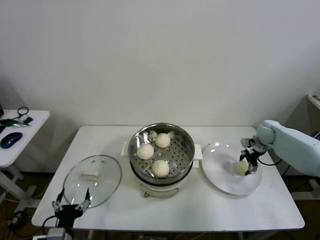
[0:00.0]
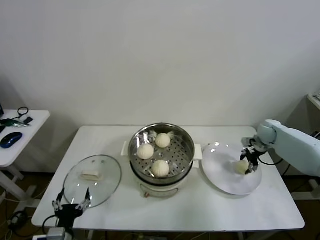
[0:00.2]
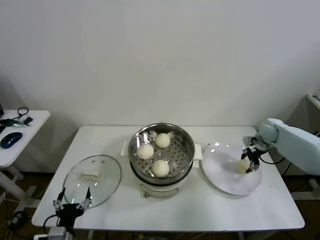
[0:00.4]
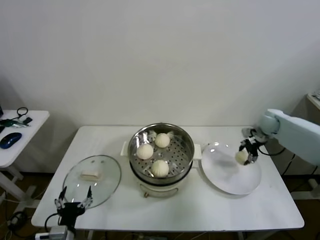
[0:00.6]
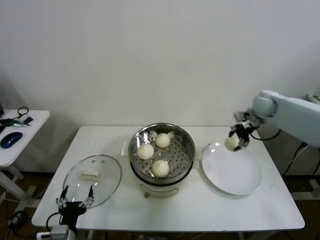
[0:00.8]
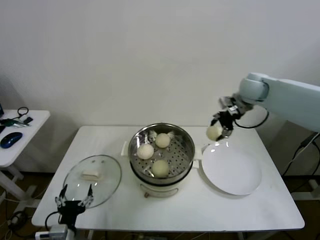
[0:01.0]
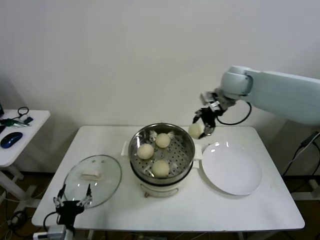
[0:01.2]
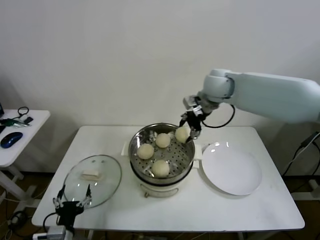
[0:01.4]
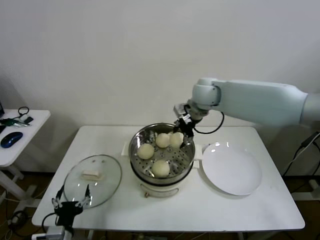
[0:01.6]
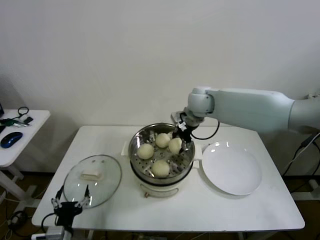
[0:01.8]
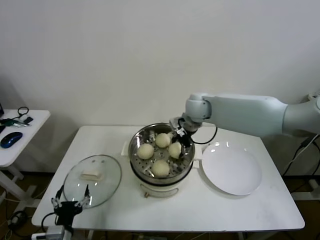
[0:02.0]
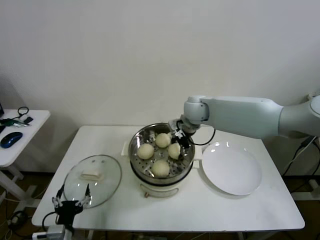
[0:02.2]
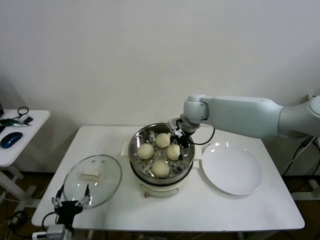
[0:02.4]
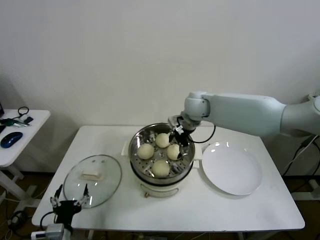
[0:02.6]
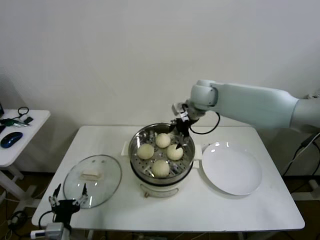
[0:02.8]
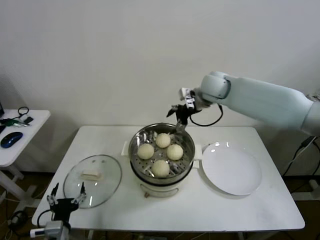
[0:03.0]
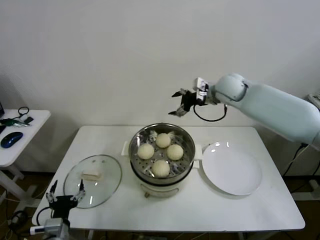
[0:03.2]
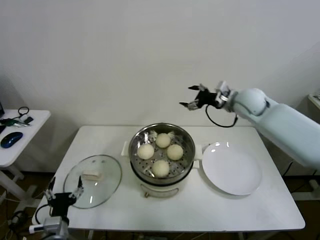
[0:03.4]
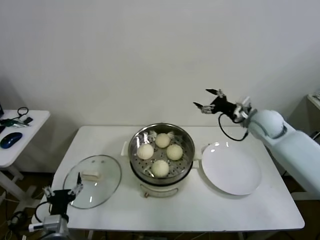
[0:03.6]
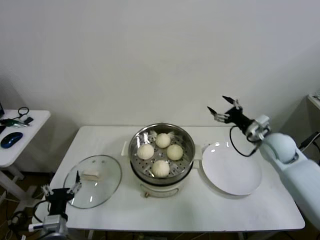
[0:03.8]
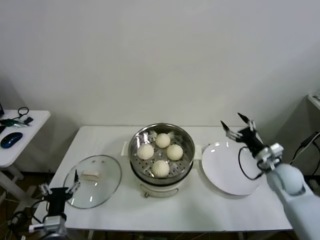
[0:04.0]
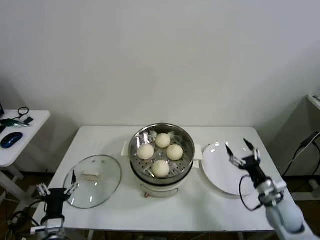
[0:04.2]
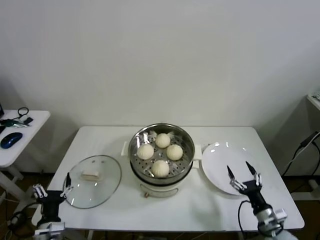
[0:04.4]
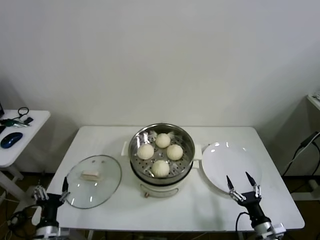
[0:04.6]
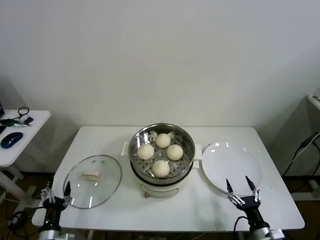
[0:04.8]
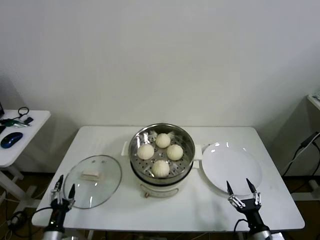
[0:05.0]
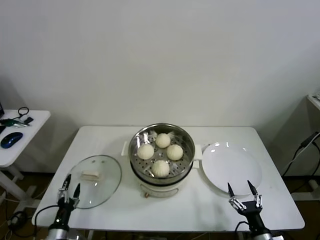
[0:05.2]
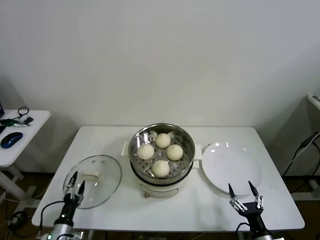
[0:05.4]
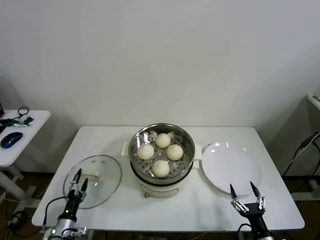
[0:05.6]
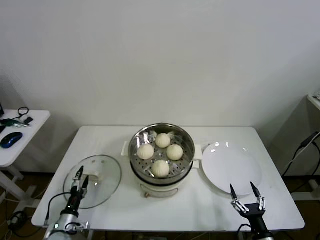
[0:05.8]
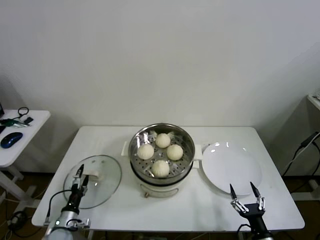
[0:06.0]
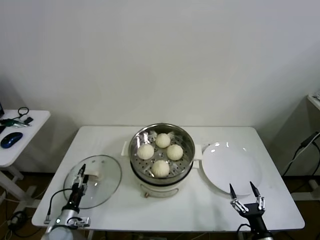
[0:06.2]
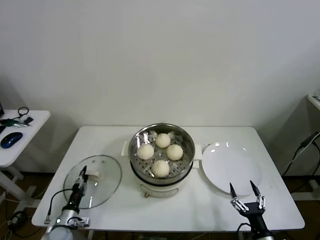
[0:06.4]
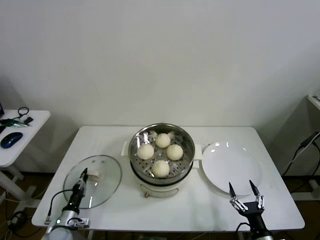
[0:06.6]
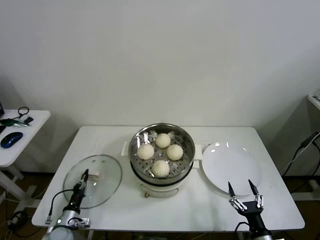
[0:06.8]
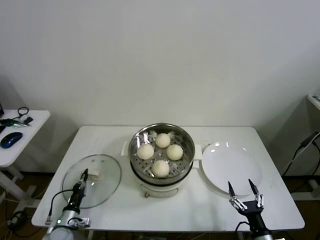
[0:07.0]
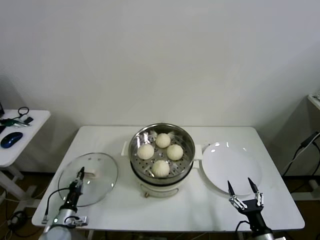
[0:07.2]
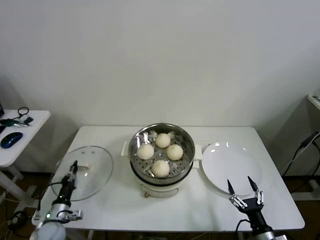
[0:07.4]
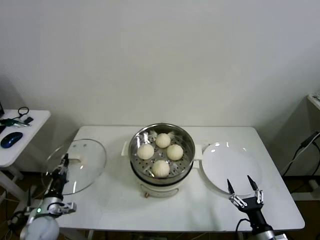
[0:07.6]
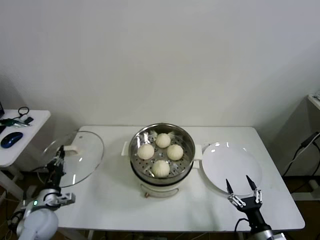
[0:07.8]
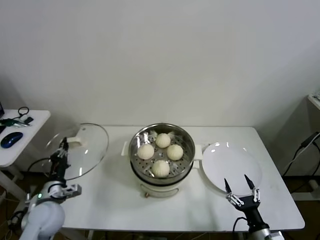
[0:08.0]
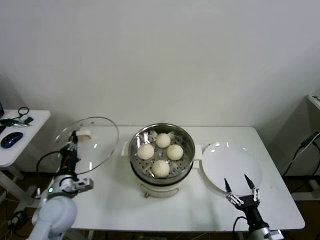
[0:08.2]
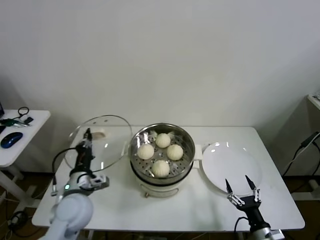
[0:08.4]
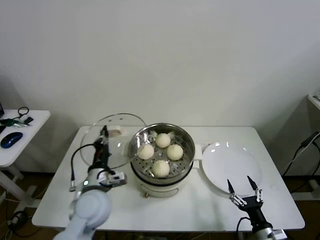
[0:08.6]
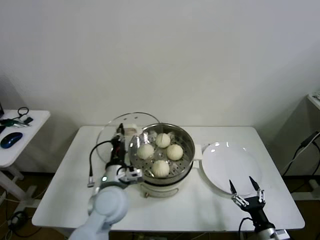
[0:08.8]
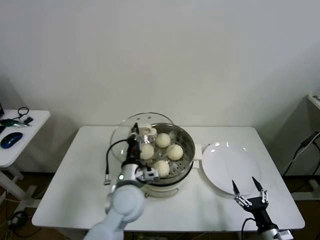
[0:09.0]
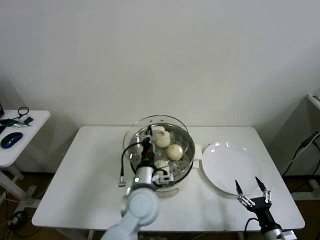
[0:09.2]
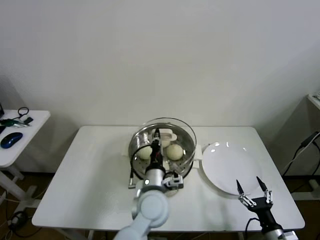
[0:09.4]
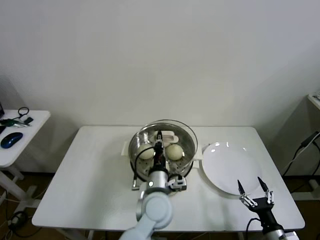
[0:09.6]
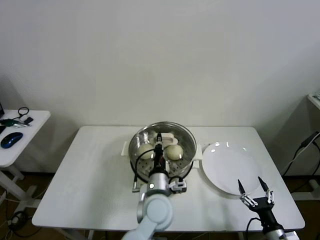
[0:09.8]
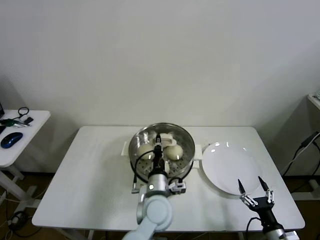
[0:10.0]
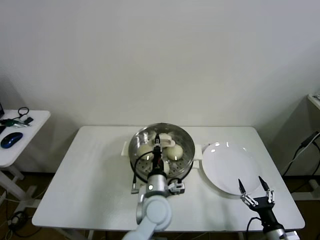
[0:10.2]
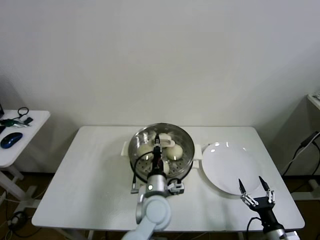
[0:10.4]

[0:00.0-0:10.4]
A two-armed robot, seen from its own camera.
Step, 0:00.4 to 0:02.4: Place the baozi on the steamer with right gripper.
Step, 0:02.6 to 0:06.6: Grasp the pot lid with left gripper.
0:00.0 to 0:01.4: The right gripper travels to the left and upward by about 35 cm.
0:01.4 to 0:03.0: The right gripper goes downward and returns, some 10 cm each way, and opens up.
0:03.0 to 0:04.4: The right gripper moves downward, backward and to the right, about 50 cm.
0:04.4 to 0:06.0: The right gripper goes approximately 10 cm backward; the left gripper is displaced downward and forward by approximately 15 cm.
0:06.0 to 0:07.4: The left gripper closes its fingers.
0:07.4 to 0:09.0: The left gripper moves to the right and upward, roughly 35 cm.
0:09.0 to 0:10.4: The left gripper is displaced to the right and downward by about 10 cm.

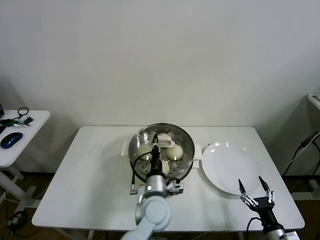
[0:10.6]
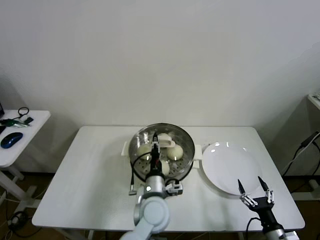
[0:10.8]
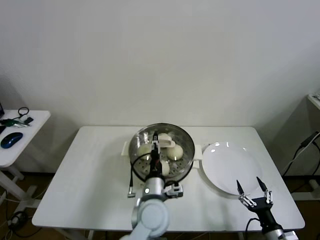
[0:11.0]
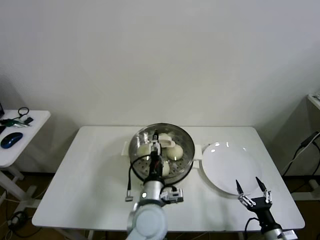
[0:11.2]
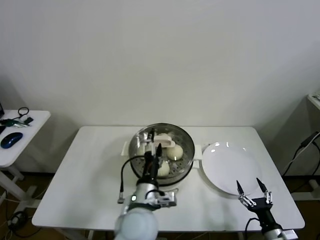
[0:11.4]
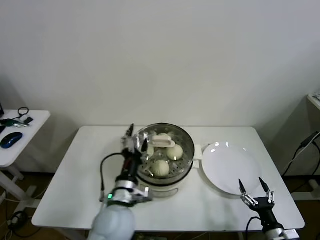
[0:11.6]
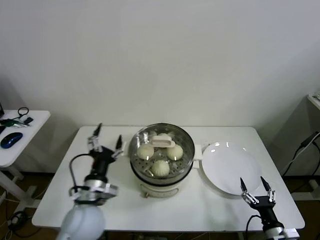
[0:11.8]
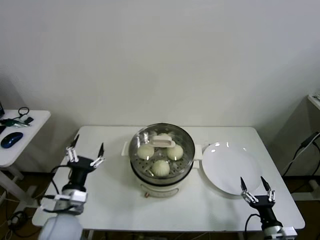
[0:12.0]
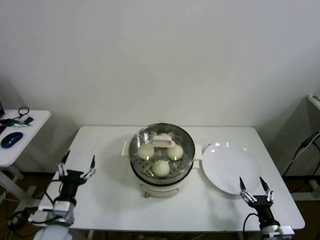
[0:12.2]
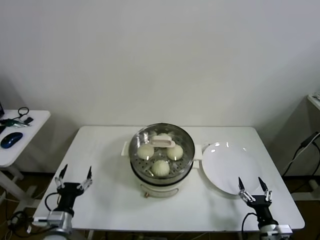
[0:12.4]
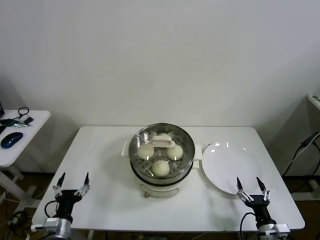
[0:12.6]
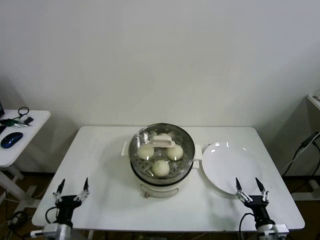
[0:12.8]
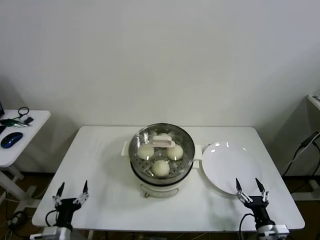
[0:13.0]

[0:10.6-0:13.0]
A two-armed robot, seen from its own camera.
0:10.6 to 0:11.8: The left gripper heads to the left, covering approximately 15 cm, and opens.
0:11.8 to 0:13.0: The left gripper moves to the left, downward and backward, about 25 cm.

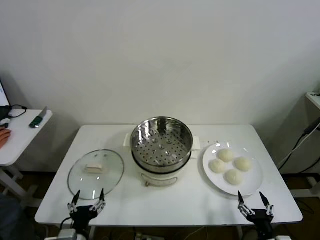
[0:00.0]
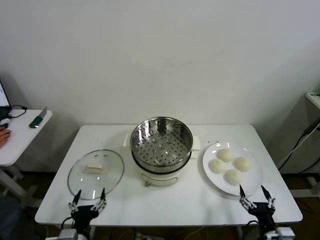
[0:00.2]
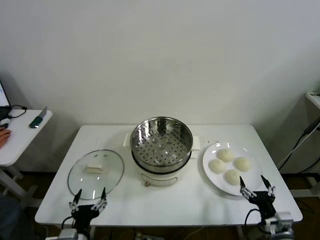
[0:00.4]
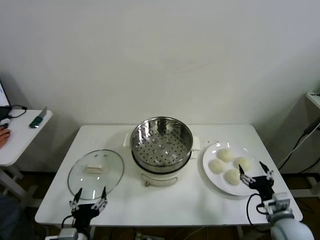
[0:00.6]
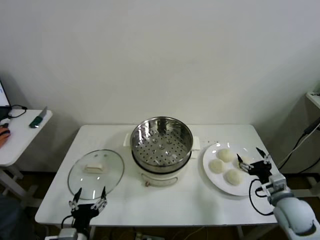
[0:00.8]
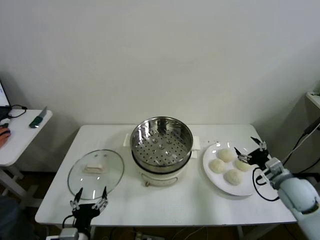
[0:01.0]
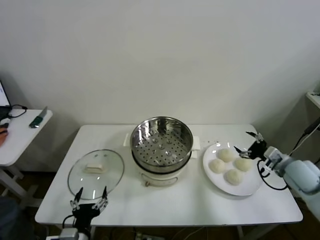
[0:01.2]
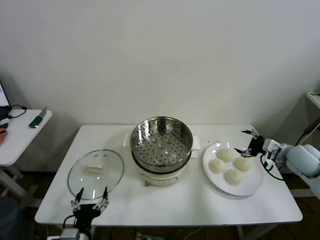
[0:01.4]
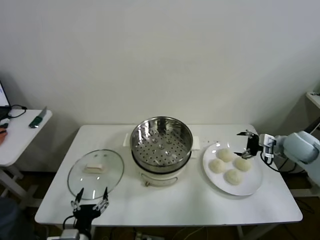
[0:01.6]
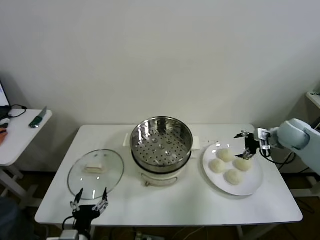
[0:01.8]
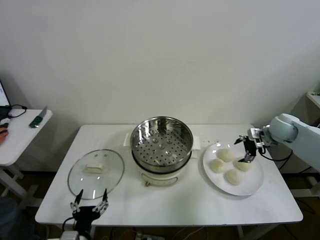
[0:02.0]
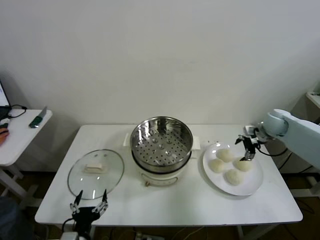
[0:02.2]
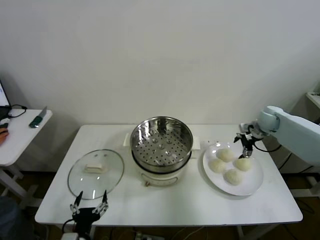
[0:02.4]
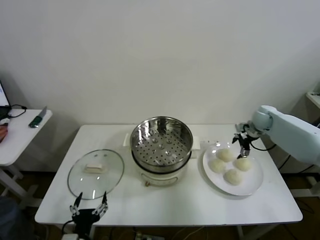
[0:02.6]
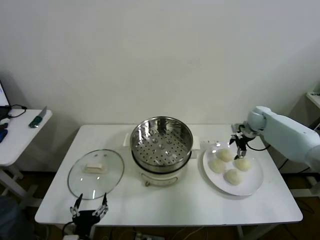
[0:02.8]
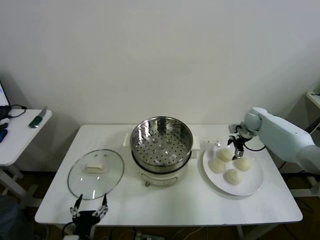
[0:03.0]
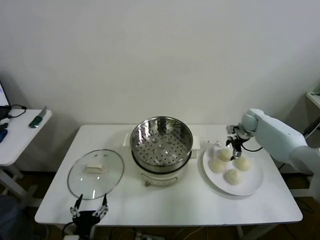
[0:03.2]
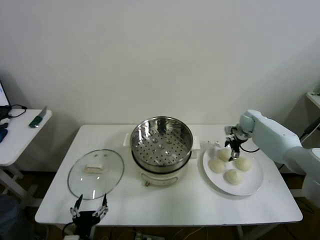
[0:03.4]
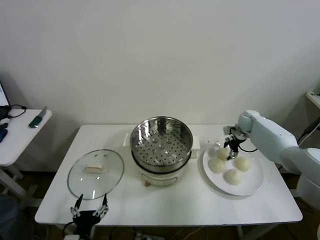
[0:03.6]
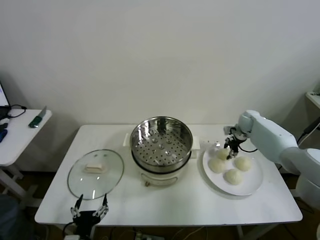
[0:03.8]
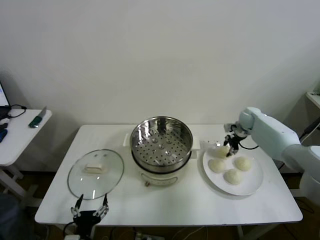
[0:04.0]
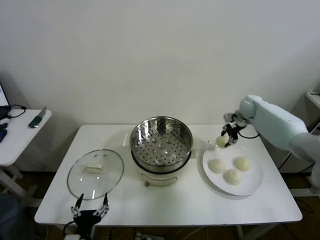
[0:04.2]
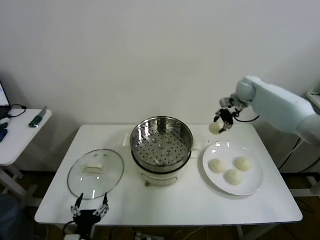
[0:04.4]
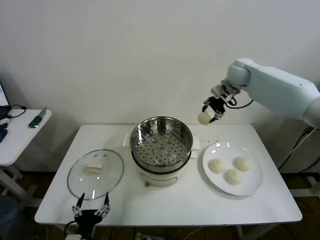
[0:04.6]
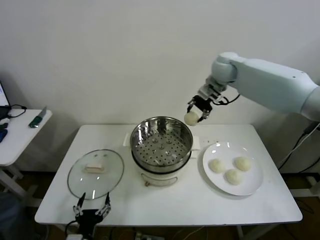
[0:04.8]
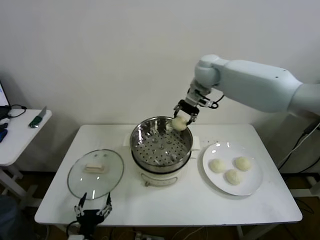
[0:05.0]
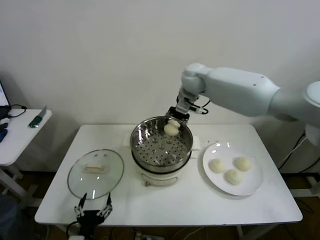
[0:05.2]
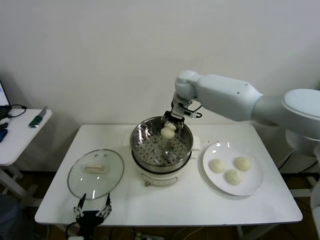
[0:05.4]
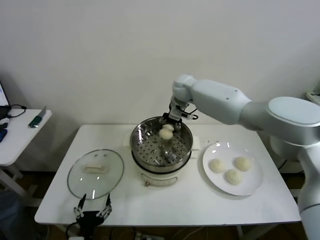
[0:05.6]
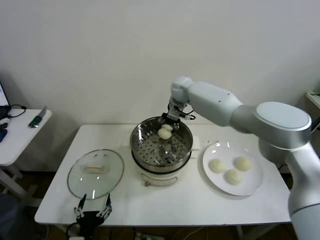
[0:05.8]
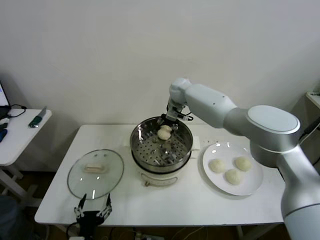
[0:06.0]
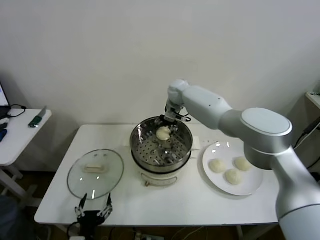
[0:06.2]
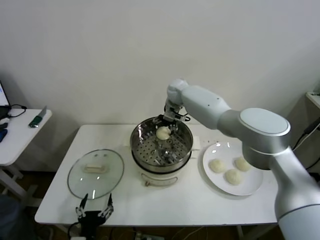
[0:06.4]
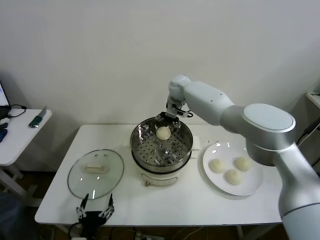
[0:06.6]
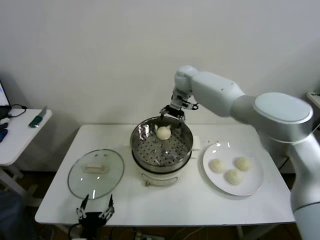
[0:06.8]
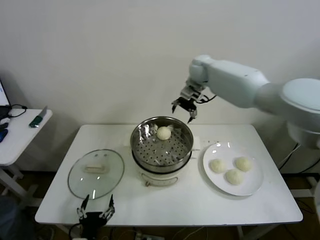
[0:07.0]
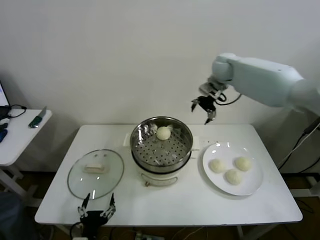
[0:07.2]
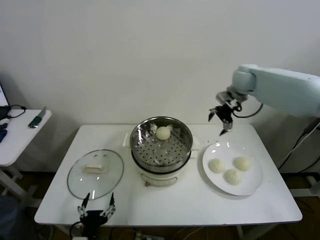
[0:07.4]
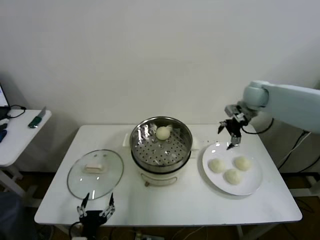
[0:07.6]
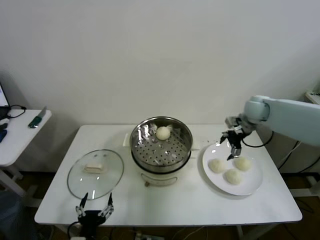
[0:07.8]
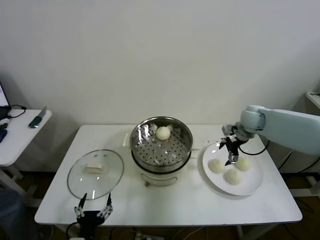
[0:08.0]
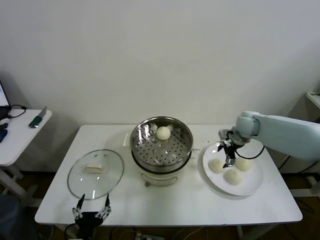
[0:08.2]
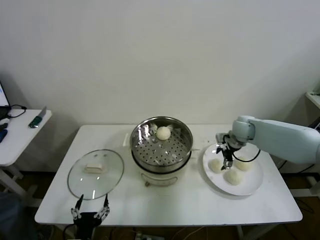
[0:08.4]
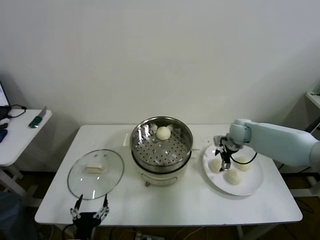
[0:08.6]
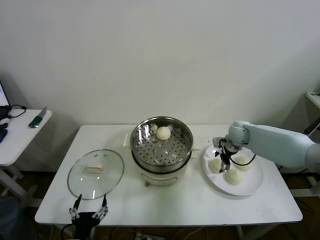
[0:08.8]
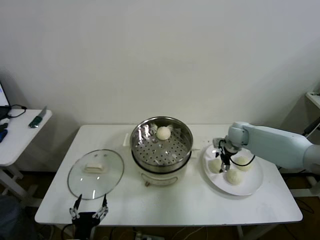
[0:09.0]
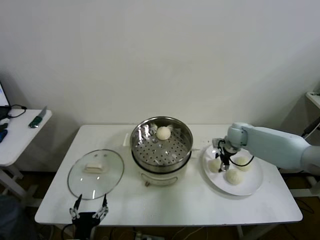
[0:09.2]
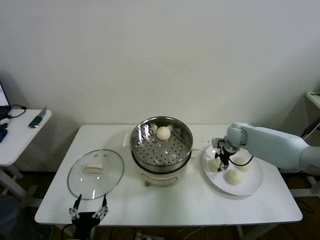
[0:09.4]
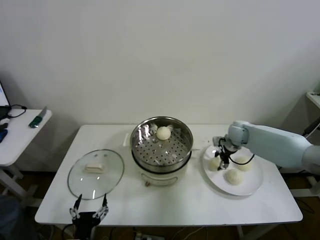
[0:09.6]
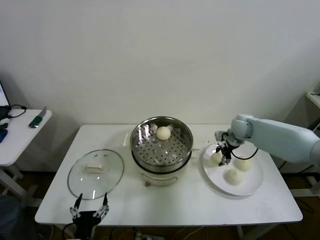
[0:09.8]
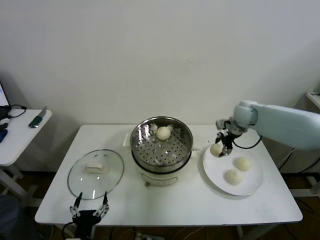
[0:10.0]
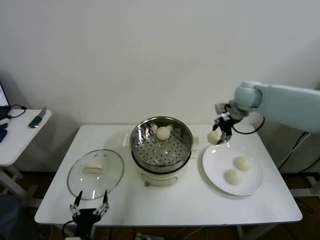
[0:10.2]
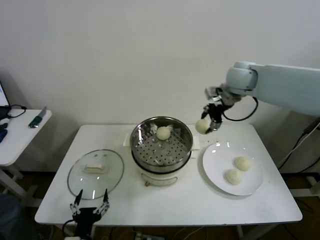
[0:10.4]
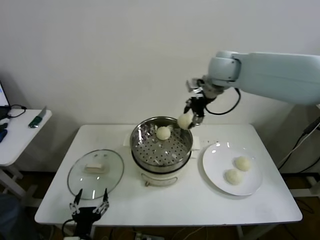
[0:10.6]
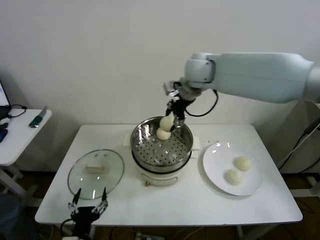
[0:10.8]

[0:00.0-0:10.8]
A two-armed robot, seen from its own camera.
Step, 0:00.0 to 0:03.6: Grasp the baozi in the plate with right gripper.
Step, 0:04.0 to 0:06.2: Place the baozi on the steamer with right gripper.
Step, 0:06.4 to 0:09.2: Grasp the baozi in the plate with right gripper.
0:01.6 to 0:03.0: The right gripper heads forward, covering approximately 15 cm.
0:03.0 to 0:04.6: The right gripper shifts approximately 25 cm upward and to the left, and closes up.
0:04.6 to 0:06.2: The right gripper goes roughly 20 cm to the left and downward, and opens.
0:06.2 to 0:07.8: The right gripper shifts about 25 cm to the right, and opens up.
0:07.8 to 0:09.2: The right gripper goes about 15 cm downward, and closes.
0:09.2 to 0:10.8: The right gripper is displaced upward and to the left by roughly 35 cm.
